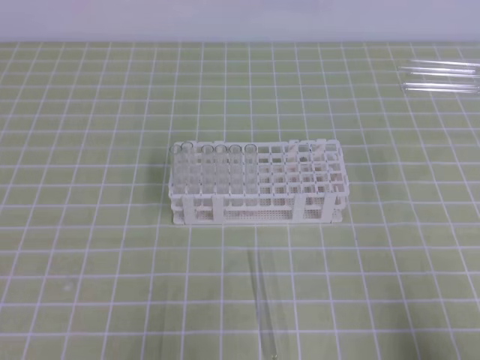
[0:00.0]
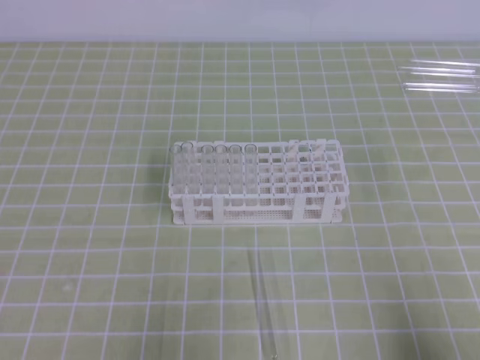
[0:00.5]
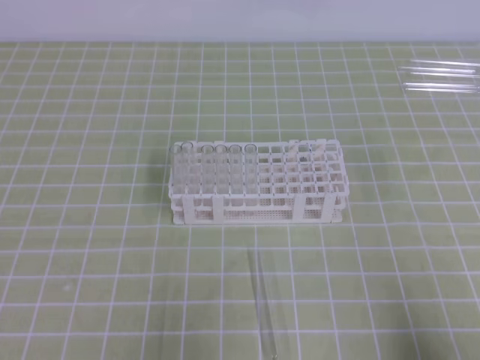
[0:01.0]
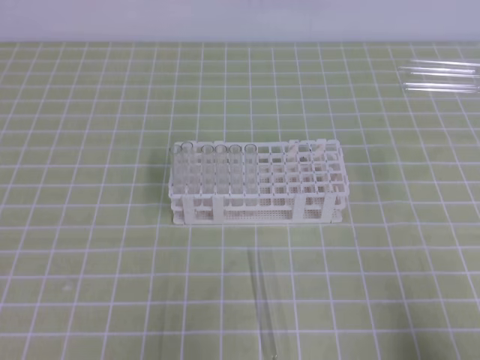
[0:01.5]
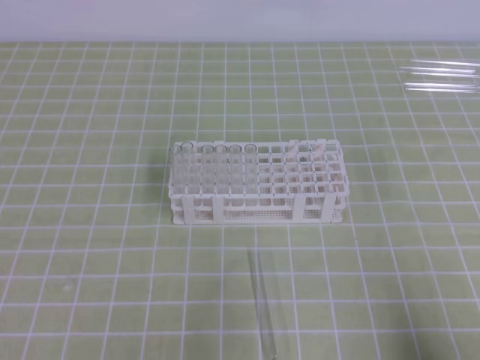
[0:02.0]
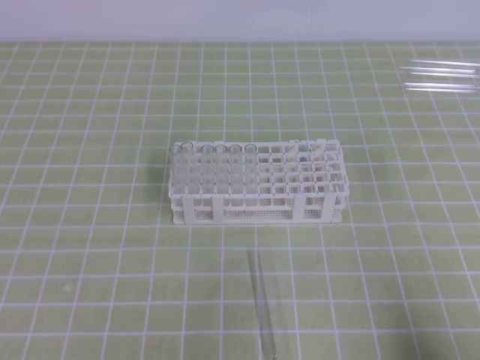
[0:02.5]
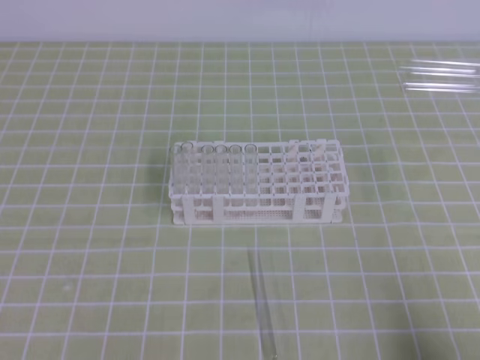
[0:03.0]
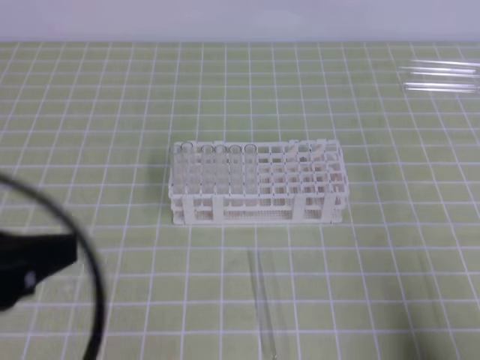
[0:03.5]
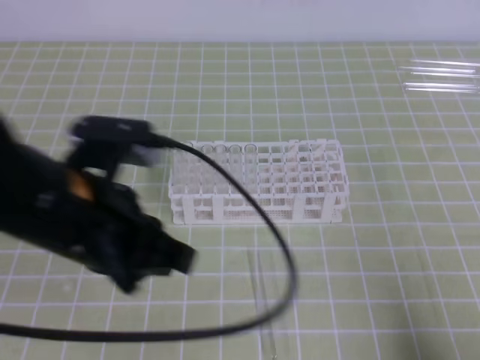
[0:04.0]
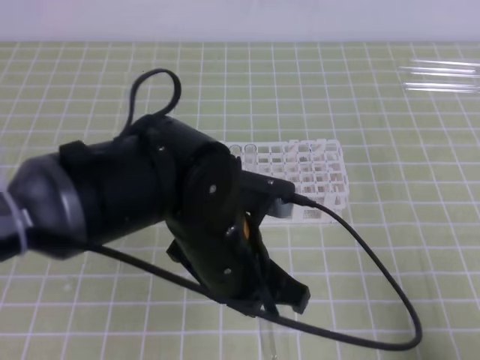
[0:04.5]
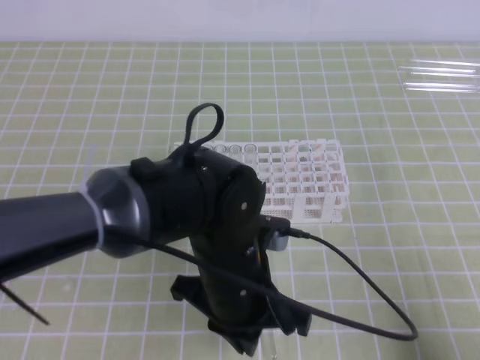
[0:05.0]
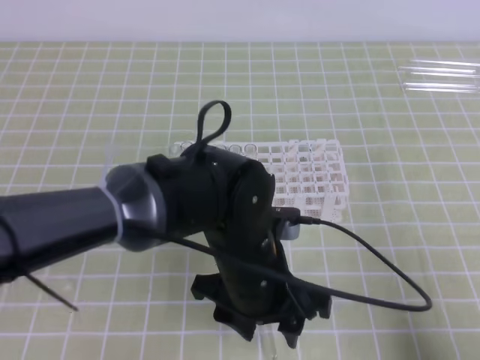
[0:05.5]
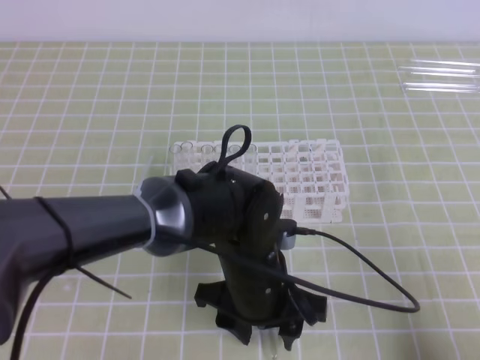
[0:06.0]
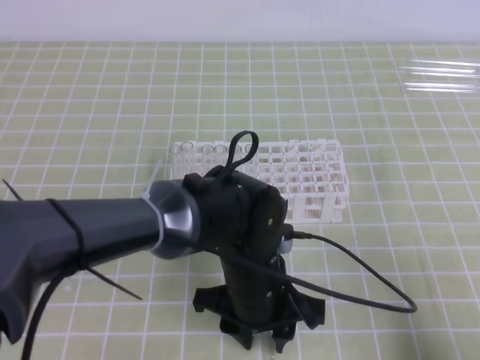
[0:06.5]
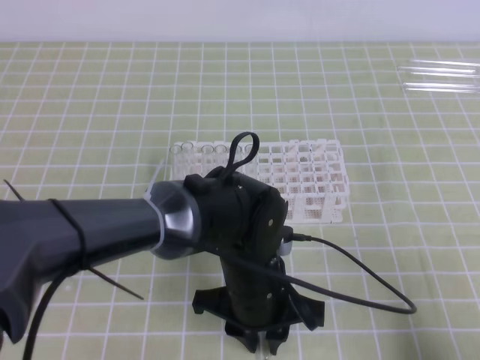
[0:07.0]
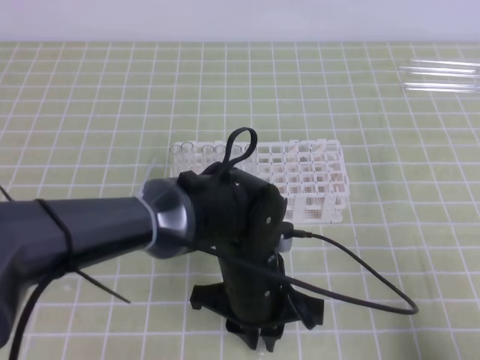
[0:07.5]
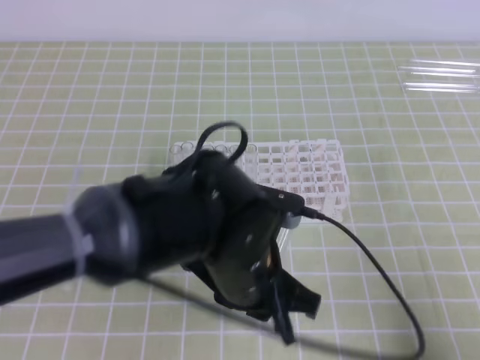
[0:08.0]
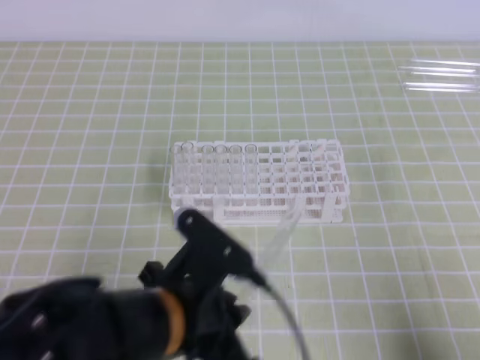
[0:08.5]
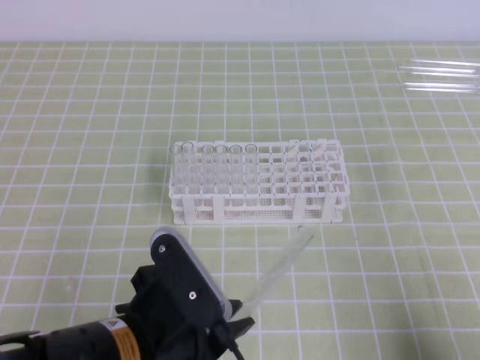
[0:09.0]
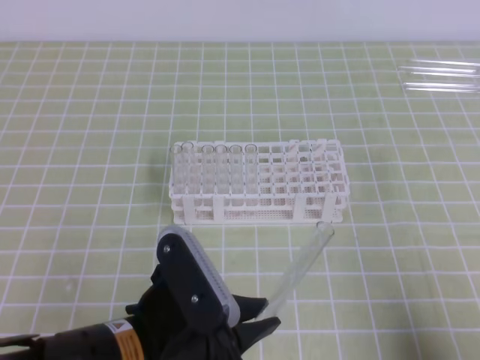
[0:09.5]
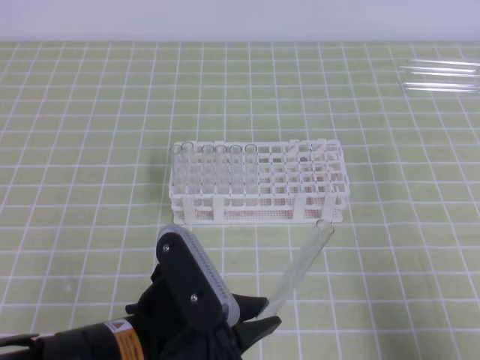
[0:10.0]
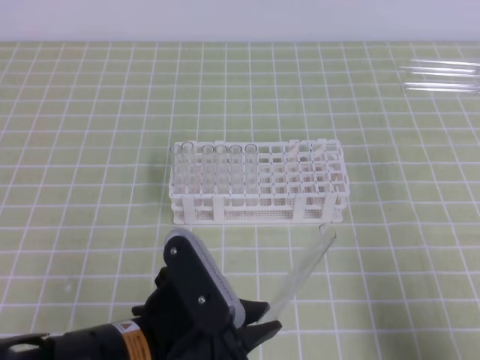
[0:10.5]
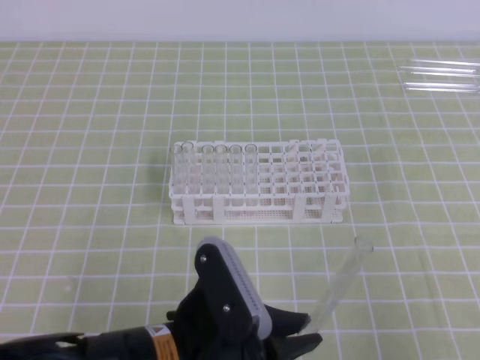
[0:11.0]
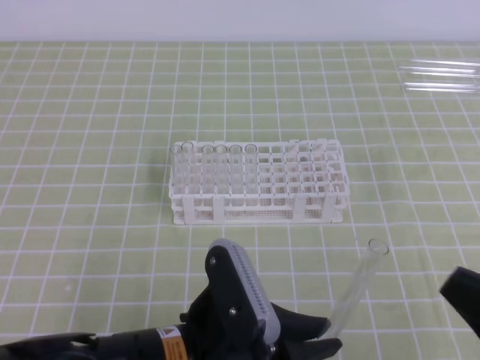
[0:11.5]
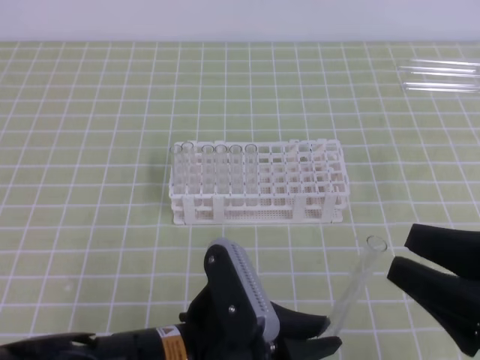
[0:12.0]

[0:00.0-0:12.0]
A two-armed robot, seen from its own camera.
0:02.0 to 0:04.0: The left gripper goes about 20 cm to the right, forward and upward.
0:04.0 to 0:06.0: The left gripper is displaced to the right and downward by roughly 20 cm, and opens.
0:06.0 to 0:08.0: The left gripper changes place by about 5 cm, and closes its fingers.
0:08.0 to 0:10.0: The left gripper shifts about 10 cm backward and to the left.
0:10.0 to 0:12.0: The right gripper travels upward and to the left by roughly 10 cm, and opens up.

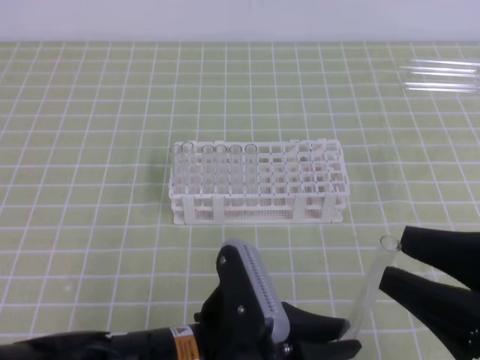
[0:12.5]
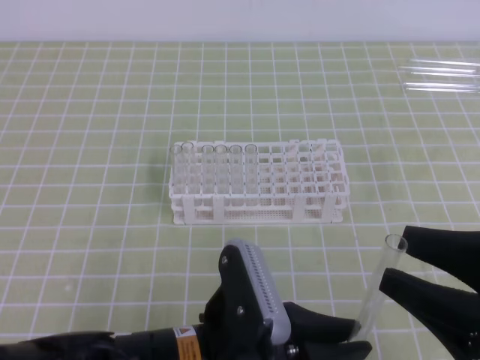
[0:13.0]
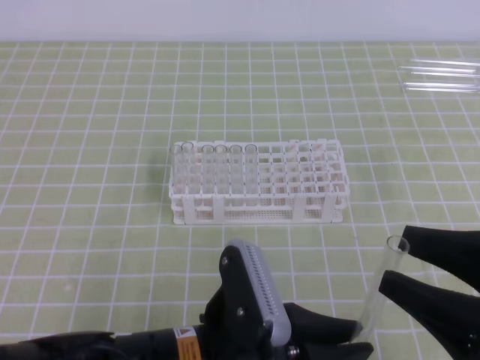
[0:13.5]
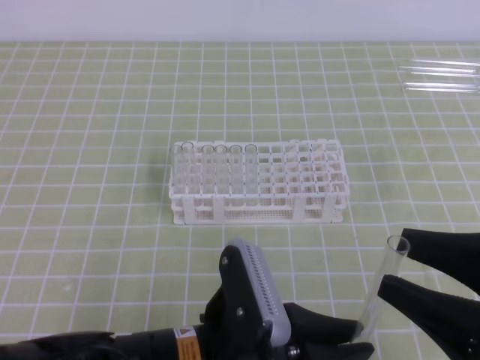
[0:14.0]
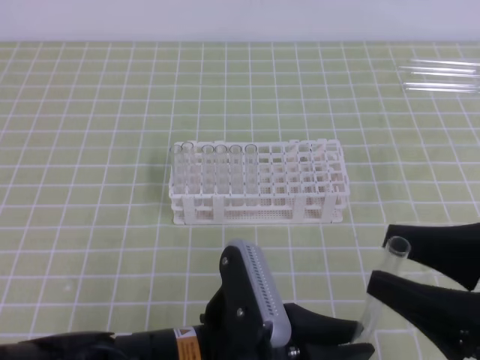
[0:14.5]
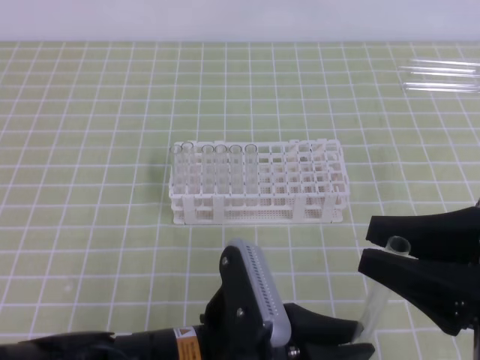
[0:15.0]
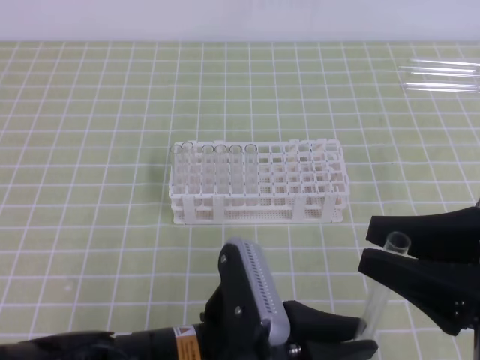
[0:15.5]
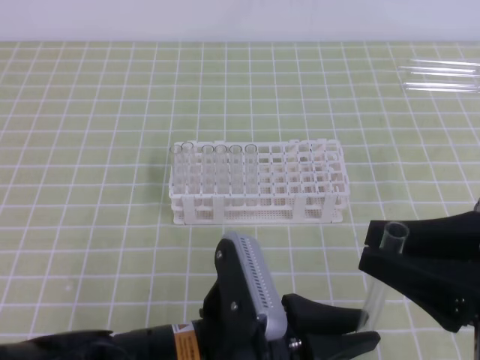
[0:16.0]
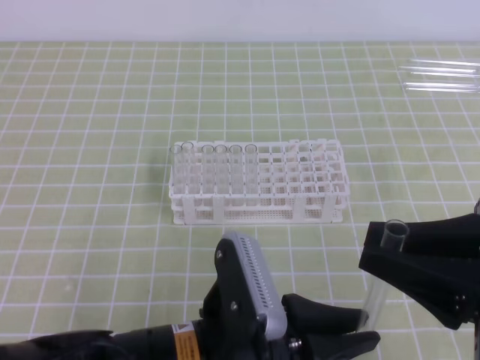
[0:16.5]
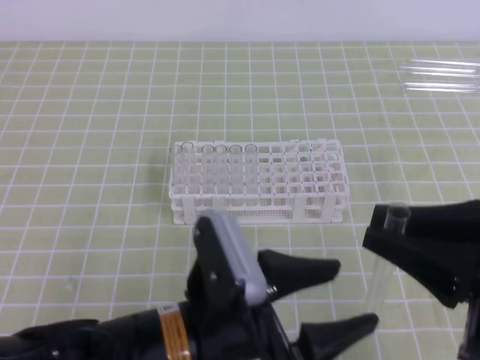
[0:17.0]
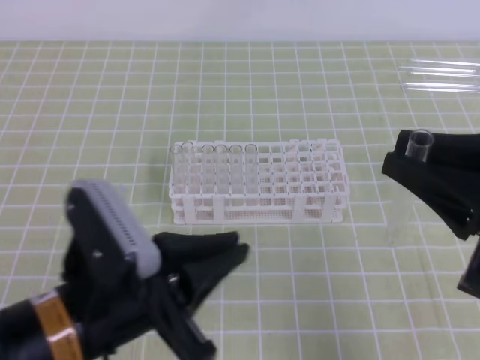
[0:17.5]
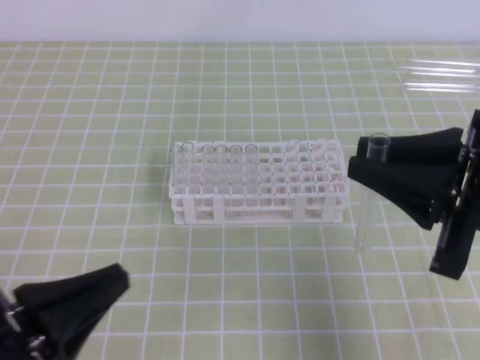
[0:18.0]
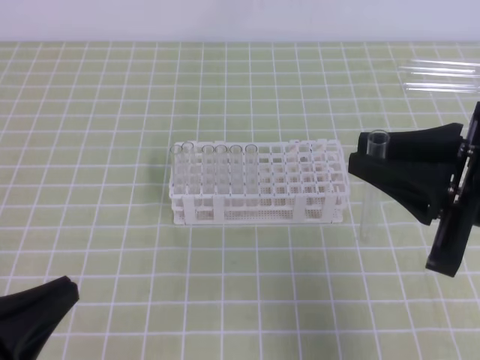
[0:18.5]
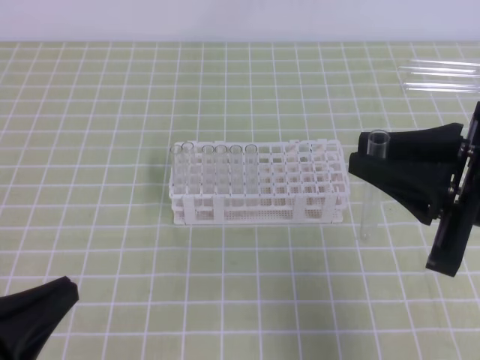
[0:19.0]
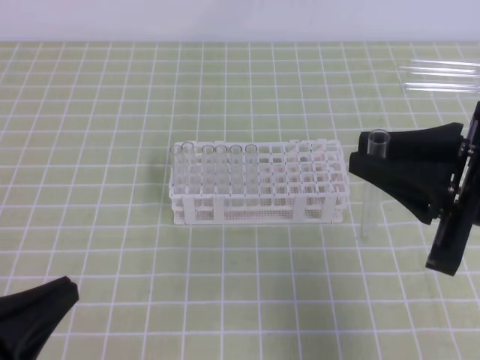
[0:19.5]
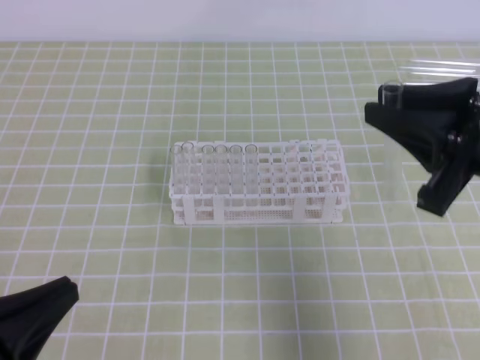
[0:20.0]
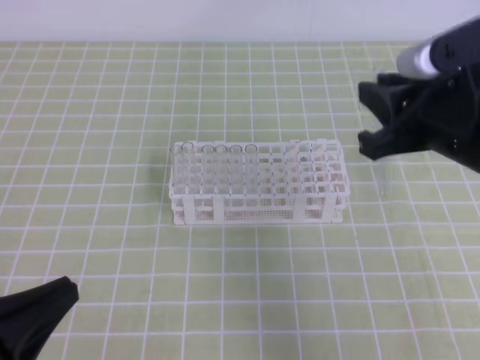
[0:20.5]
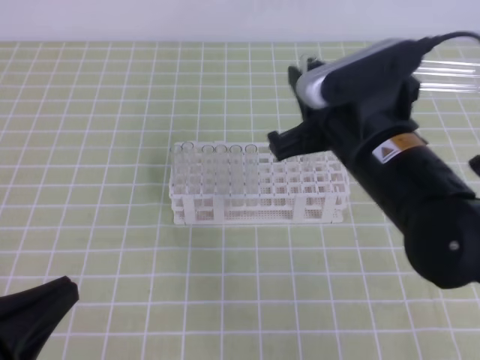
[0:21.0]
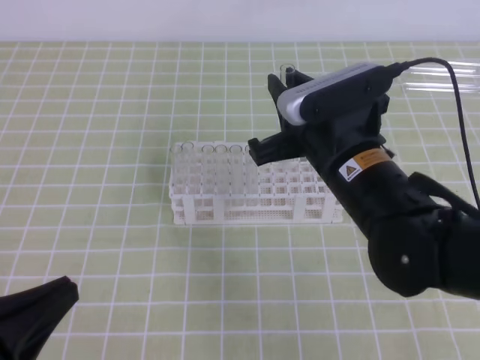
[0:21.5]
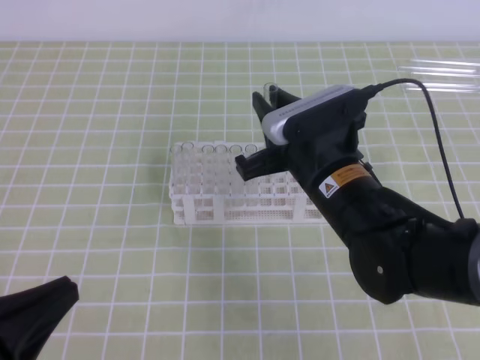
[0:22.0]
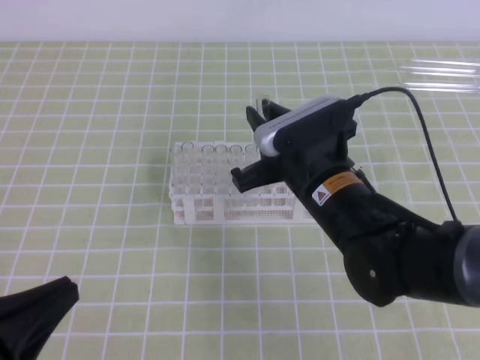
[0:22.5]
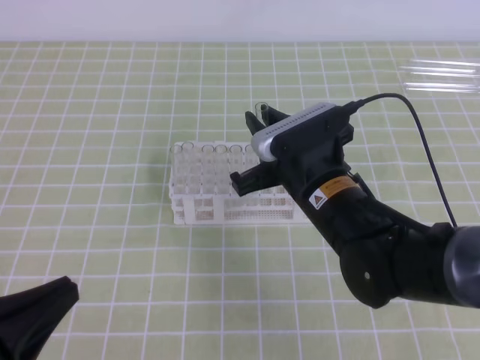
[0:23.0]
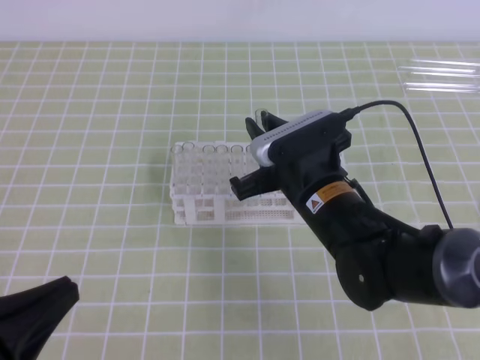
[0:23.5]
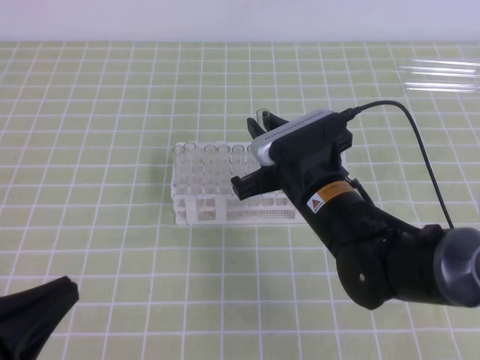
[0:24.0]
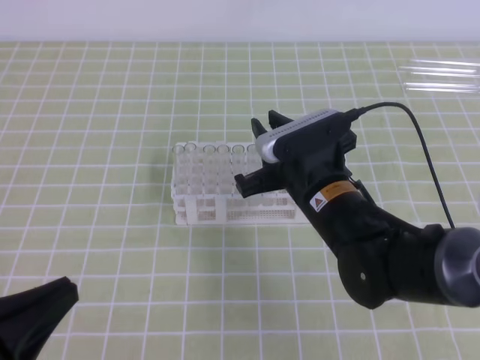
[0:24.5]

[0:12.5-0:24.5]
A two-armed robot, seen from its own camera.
0:12.5 to 0:14.5: The grippers move only a little.
0:14.5 to 0:16.5: The right gripper closes up.
0:16.5 to 0:18.5: The right gripper travels forward by roughly 5 cm. The left gripper goes some 20 cm to the left, and opens, then closes again.
0:18.5 to 0:20.5: The right gripper is displaced forward by roughly 5 cm.
0:20.5 to 0:22.5: The right gripper shifts approximately 15 cm to the left and downward.
0:22.5 to 0:24.5: The grippers make only small movements.

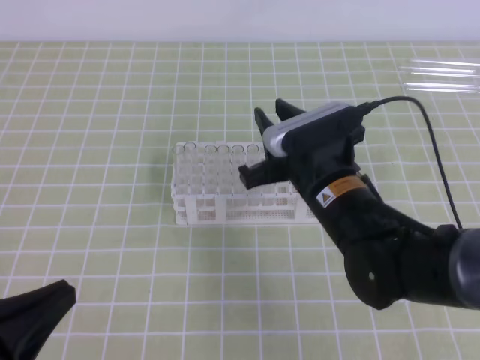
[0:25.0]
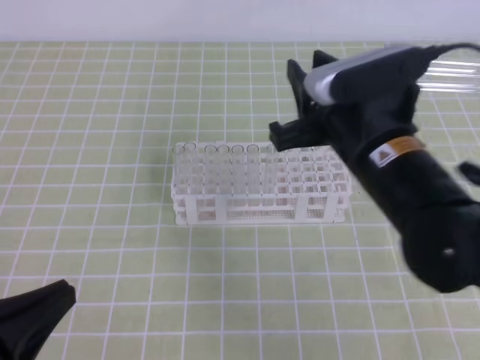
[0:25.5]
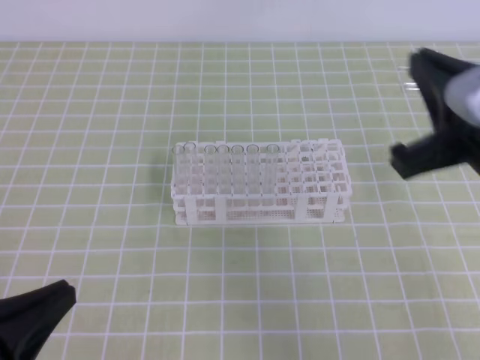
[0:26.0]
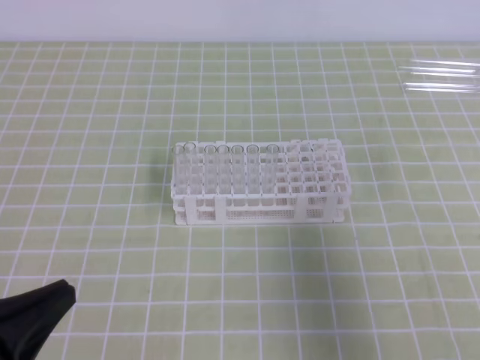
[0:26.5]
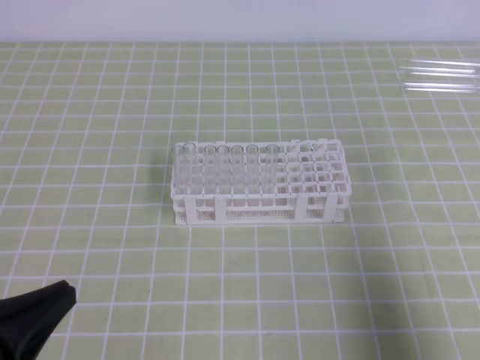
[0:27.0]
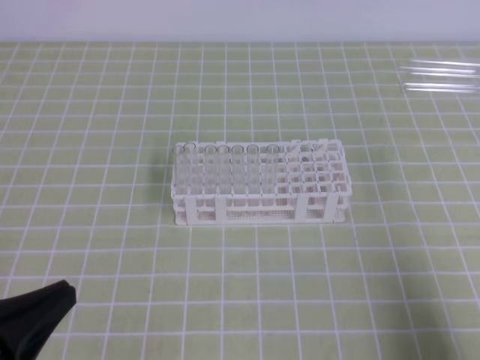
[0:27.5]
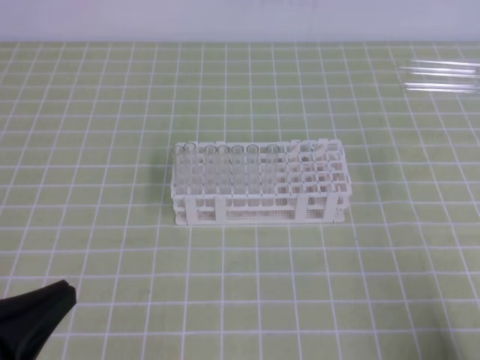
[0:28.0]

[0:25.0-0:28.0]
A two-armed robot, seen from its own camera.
0:25.0 to 0:26.5: The right gripper goes roughly 25 cm to the right and backward, and closes.
0:26.5 to 0:28.0: The right gripper shifts about 15 cm downward and backward.
